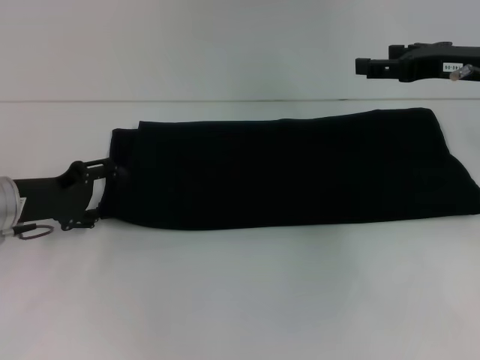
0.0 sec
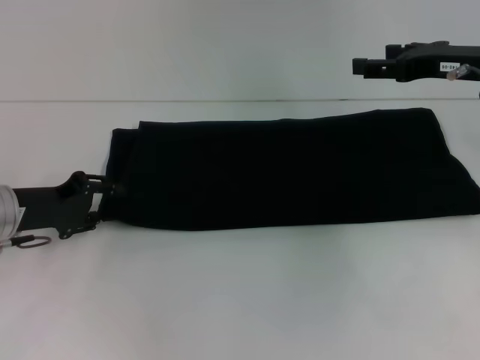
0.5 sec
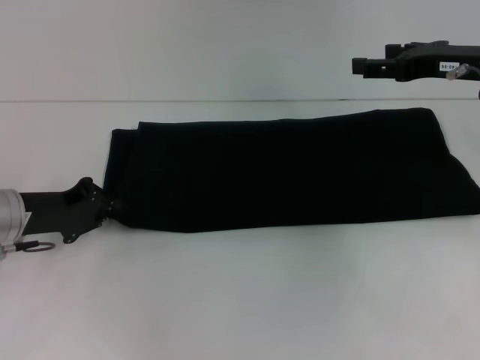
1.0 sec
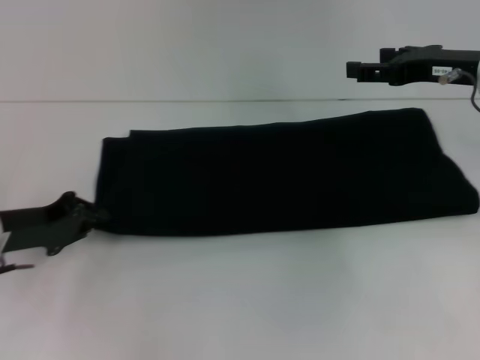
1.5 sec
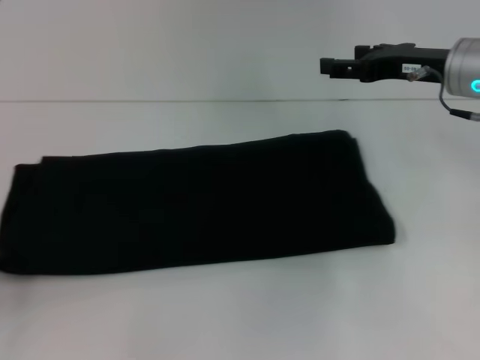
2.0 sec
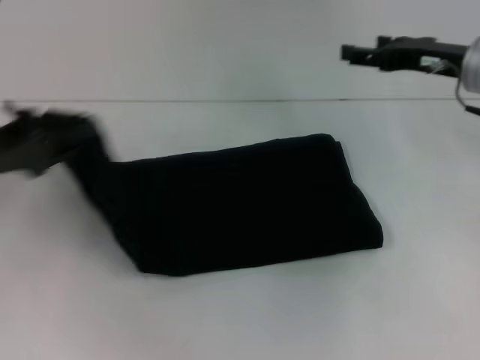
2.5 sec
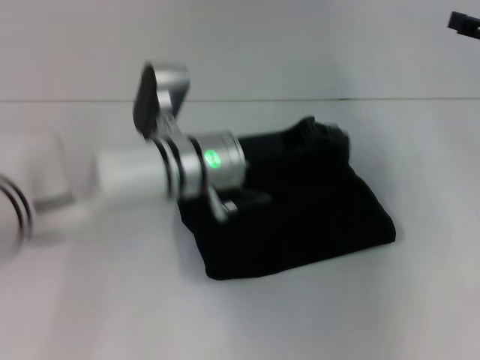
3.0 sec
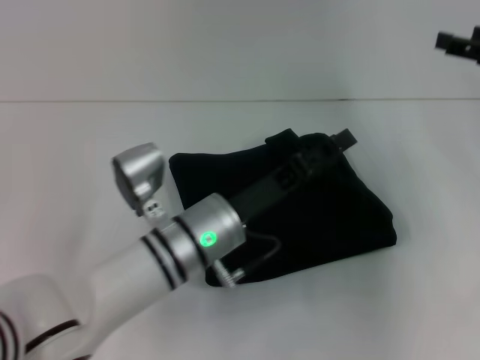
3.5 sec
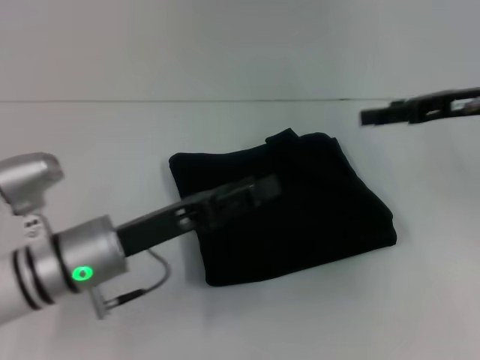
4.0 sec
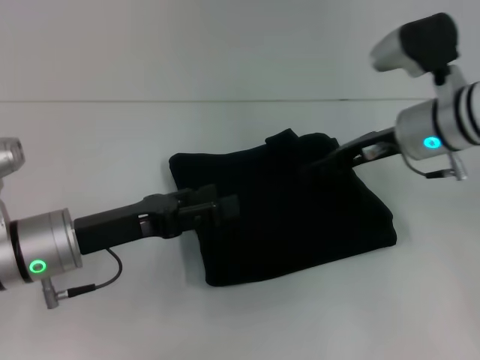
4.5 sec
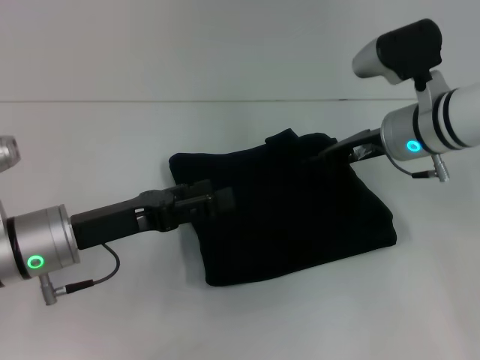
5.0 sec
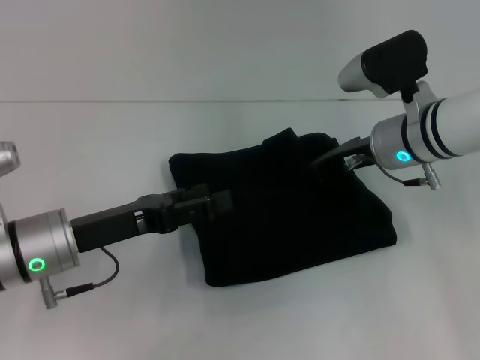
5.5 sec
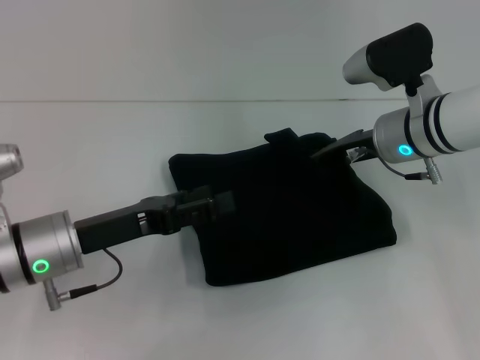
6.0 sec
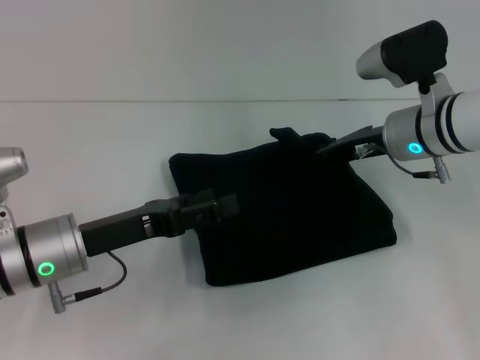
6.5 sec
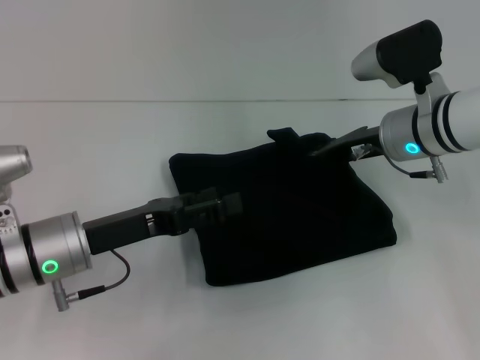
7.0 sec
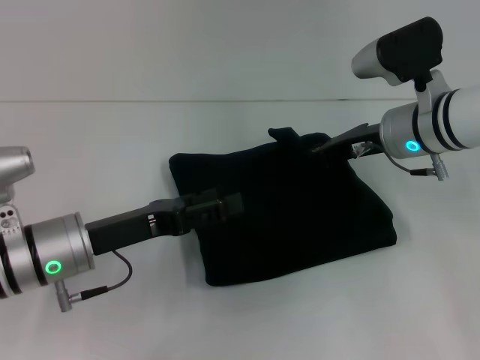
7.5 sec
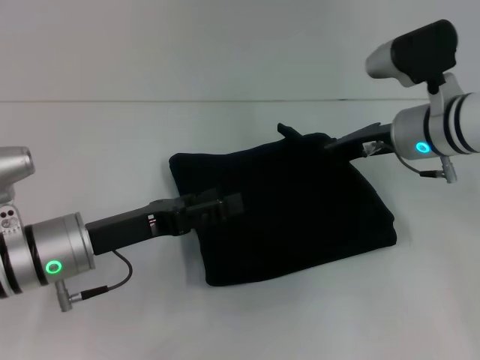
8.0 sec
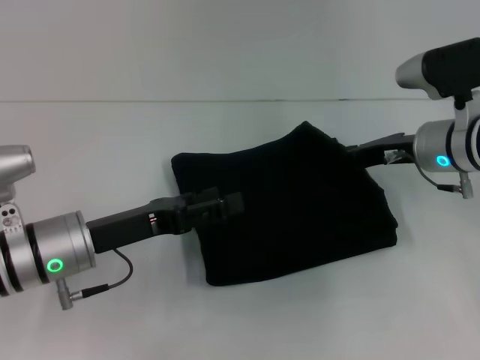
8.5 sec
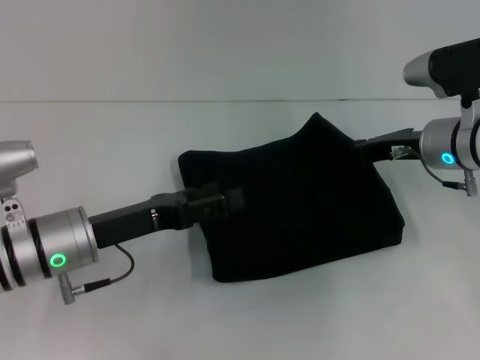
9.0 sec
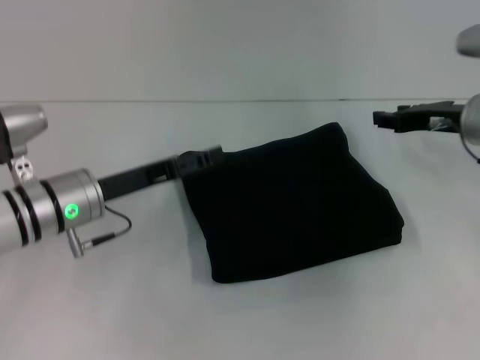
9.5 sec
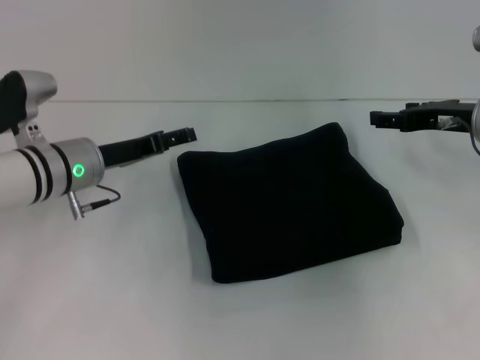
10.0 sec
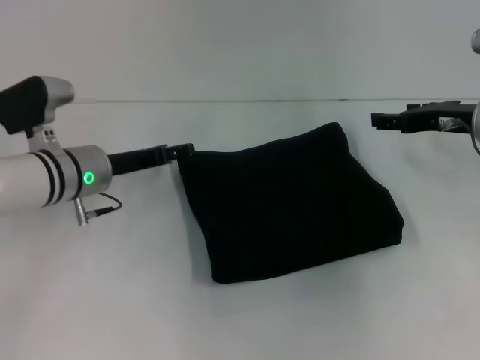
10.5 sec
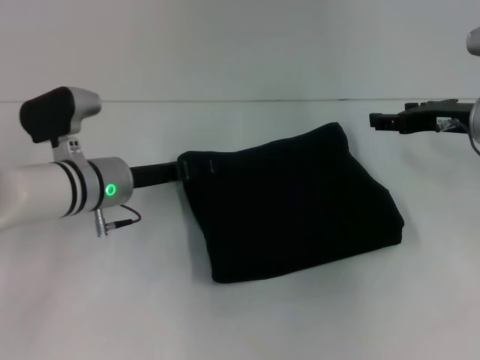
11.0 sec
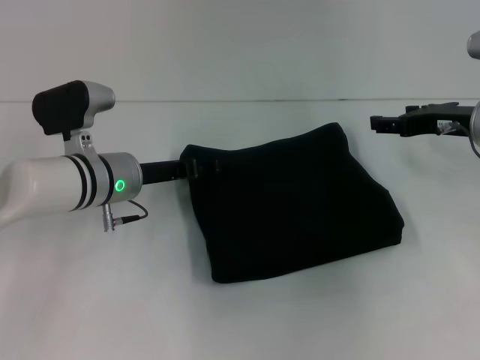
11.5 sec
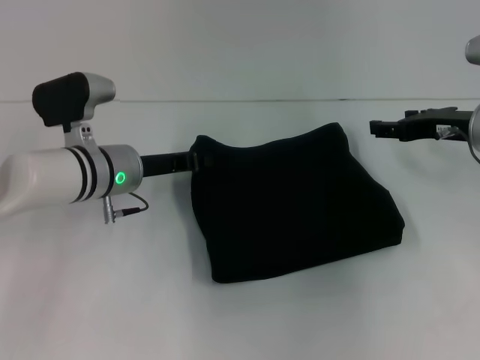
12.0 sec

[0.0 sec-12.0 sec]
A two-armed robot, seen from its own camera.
Step, 0.0 sec to 3.5 sec: Fold the clothes with your left hand.
0.0 sec to 2.0 sec: The left gripper heads backward and to the left, covering roughly 15 cm, and closes.
2.0 sec to 4.0 sec: The left gripper goes approximately 20 cm to the right, and opens up.
4.0 sec to 6.0 sec: The right gripper is displaced to the left and downward by roughly 10 cm, and closes up.
6.0 sec to 8.0 sec: There are only small adjustments of the grippers.
8.0 sec to 10.0 sec: The left gripper shifts approximately 10 cm forward. Meanwhile the right gripper goes some 10 cm to the right, and opens its fingers.
10.0 sec to 12.0 sec: The left gripper closes.

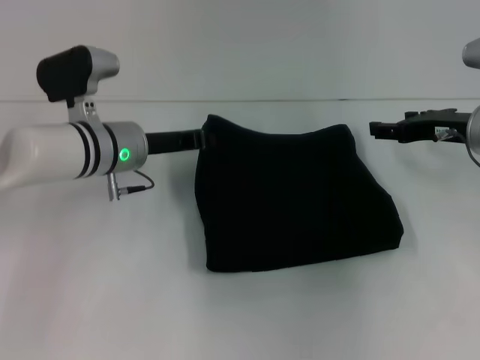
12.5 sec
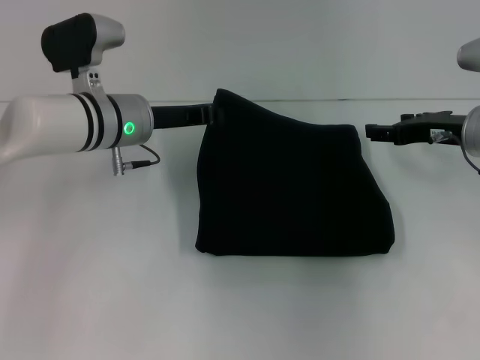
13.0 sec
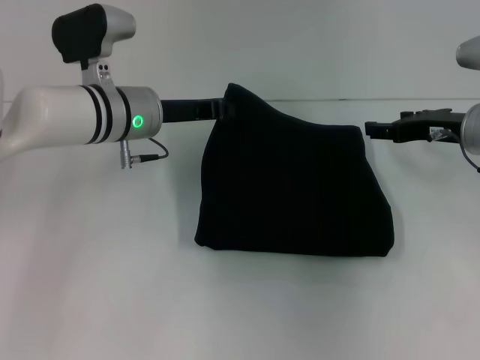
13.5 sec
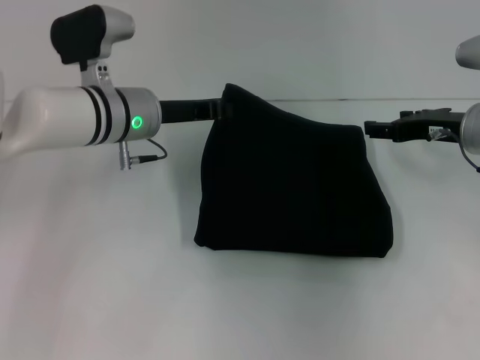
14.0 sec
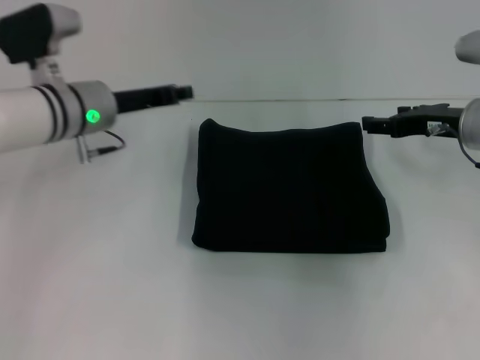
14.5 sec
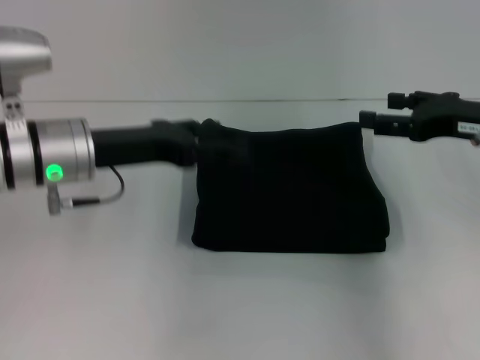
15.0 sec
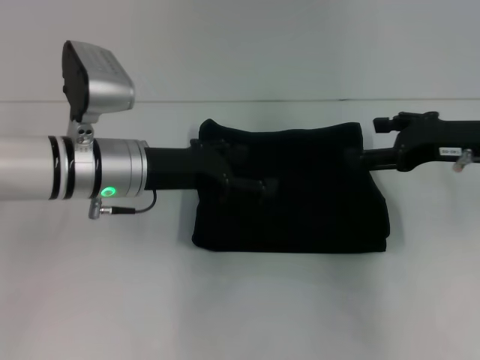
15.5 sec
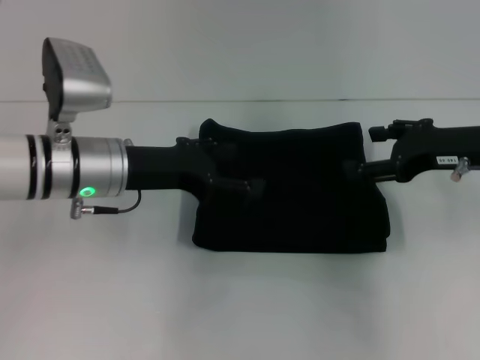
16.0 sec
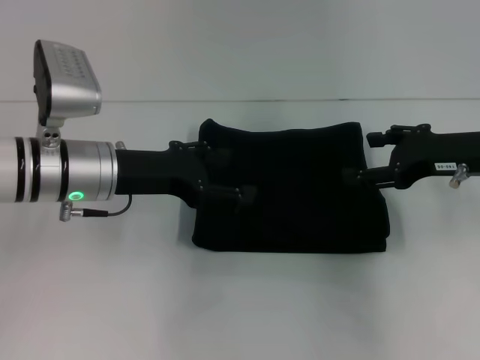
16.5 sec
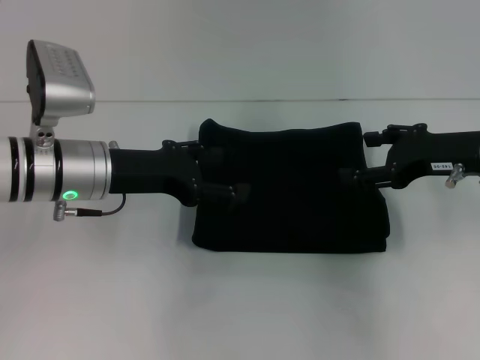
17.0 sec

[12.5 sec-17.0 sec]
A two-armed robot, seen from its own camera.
12.5 sec to 14.5 sec: The grippers make only small movements.
14.5 sec to 17.0 sec: The left gripper moves backward, approximately 5 cm, and opens up.

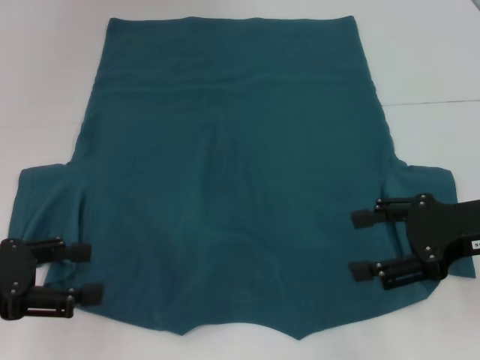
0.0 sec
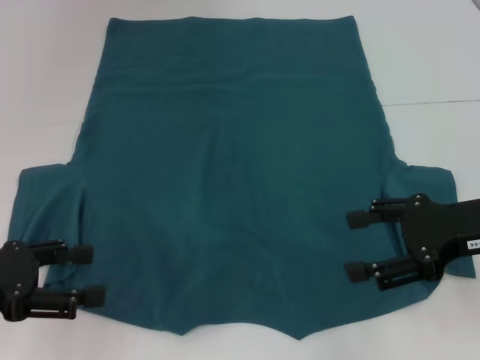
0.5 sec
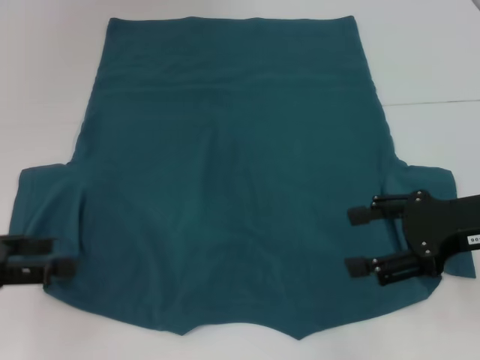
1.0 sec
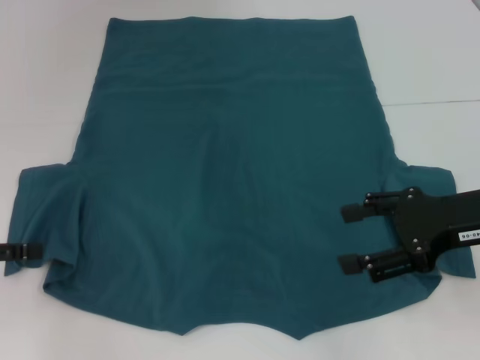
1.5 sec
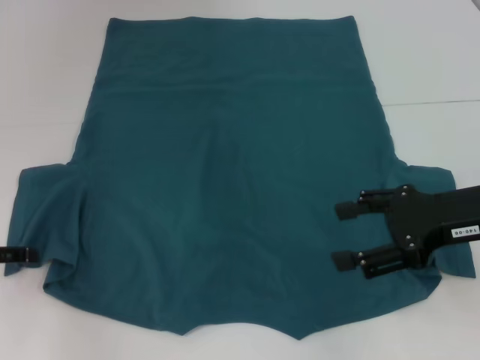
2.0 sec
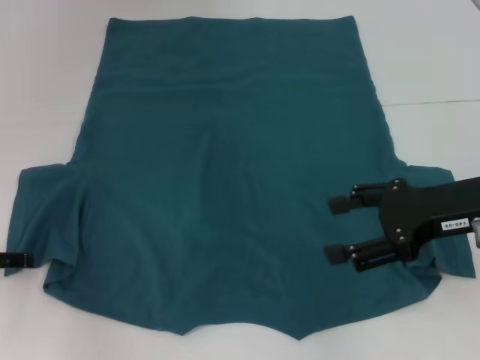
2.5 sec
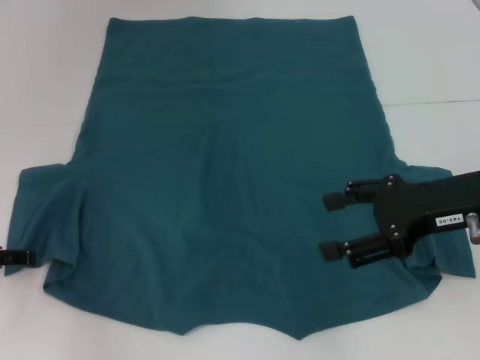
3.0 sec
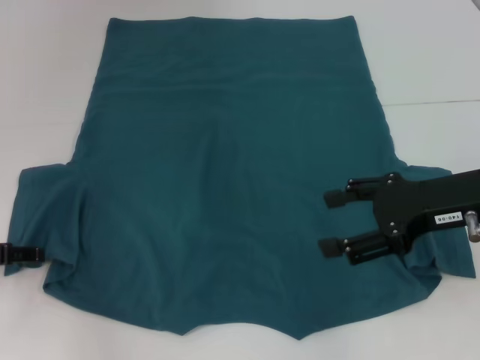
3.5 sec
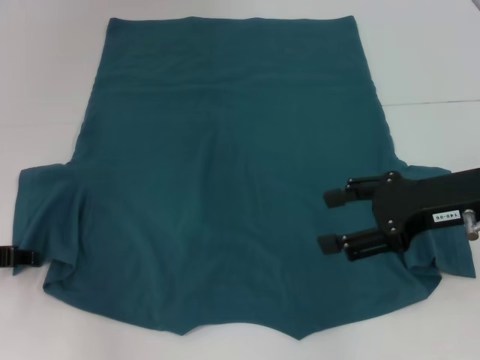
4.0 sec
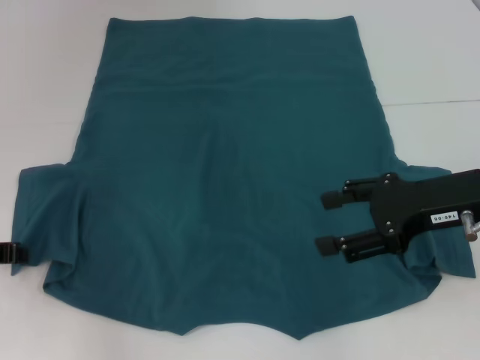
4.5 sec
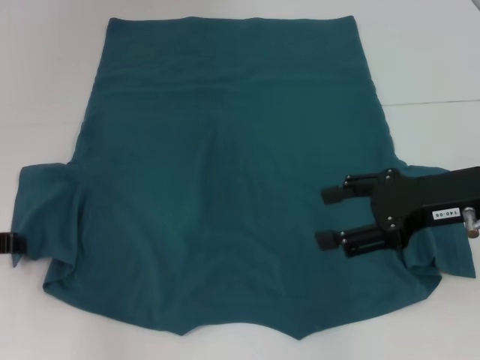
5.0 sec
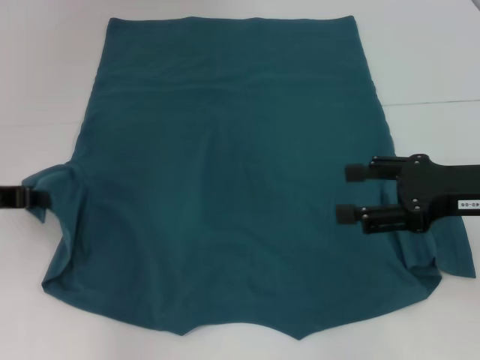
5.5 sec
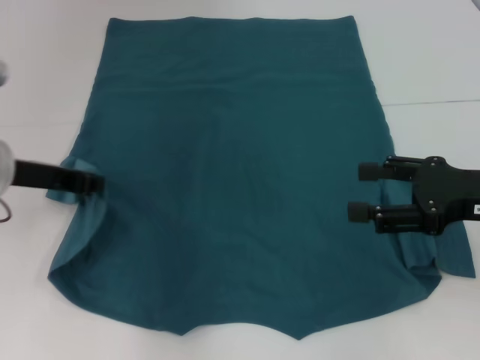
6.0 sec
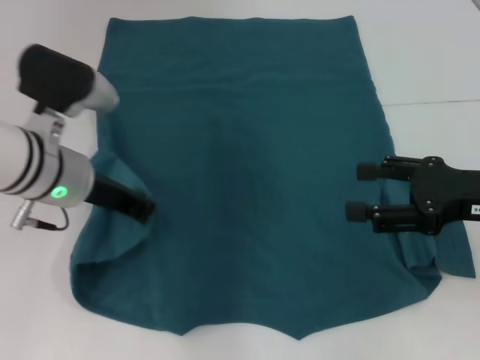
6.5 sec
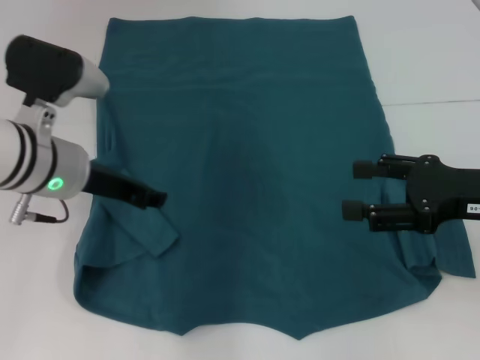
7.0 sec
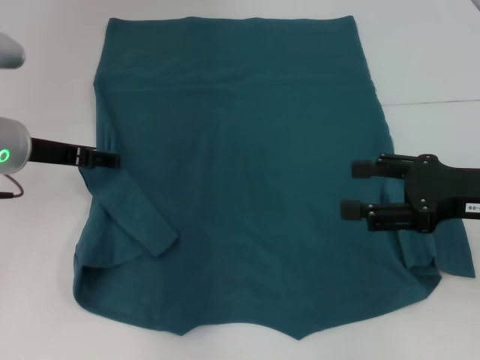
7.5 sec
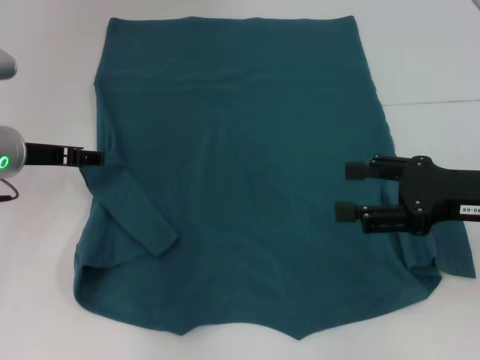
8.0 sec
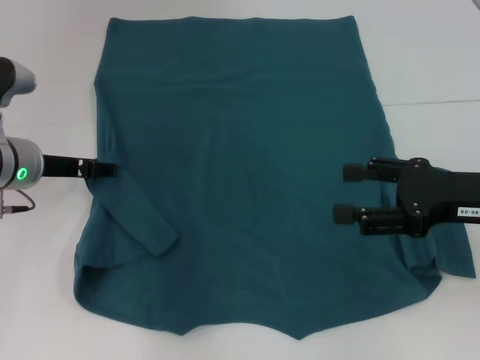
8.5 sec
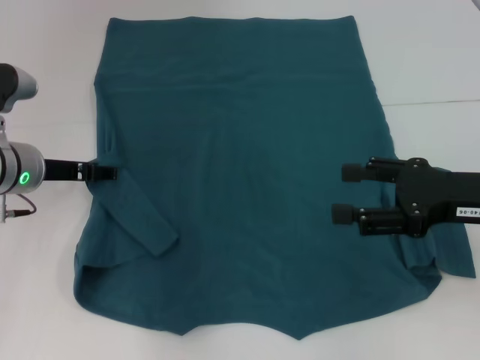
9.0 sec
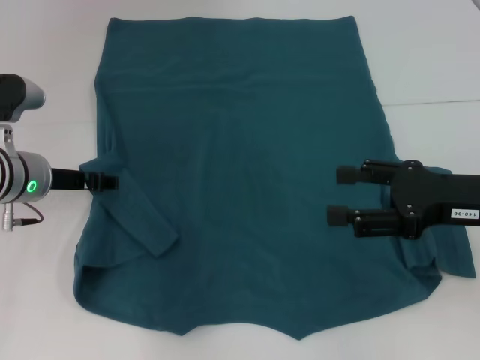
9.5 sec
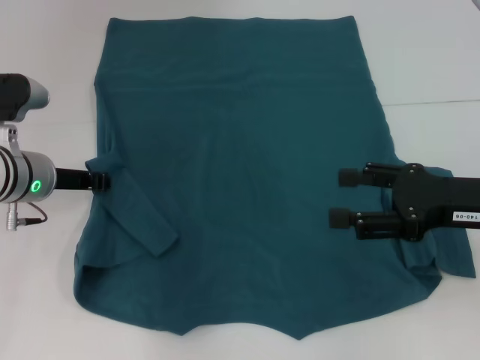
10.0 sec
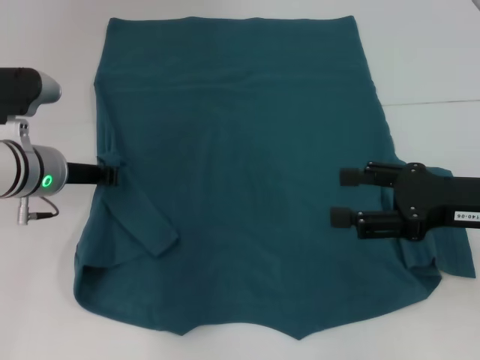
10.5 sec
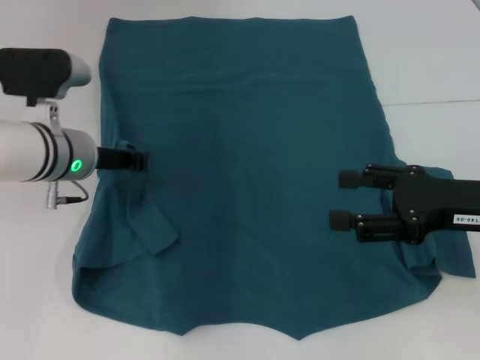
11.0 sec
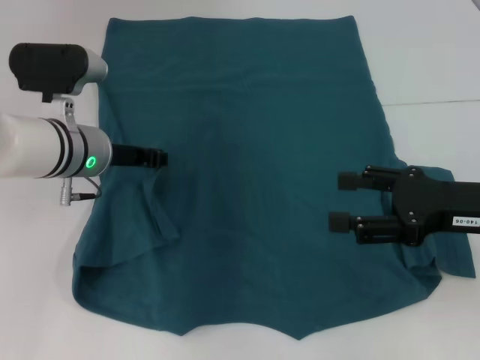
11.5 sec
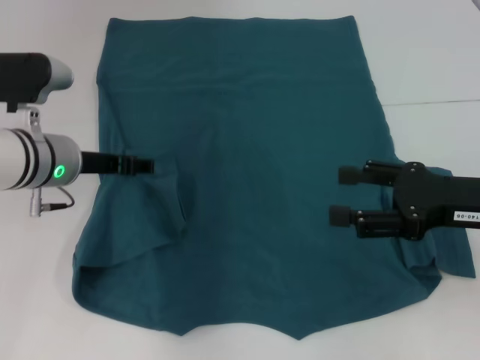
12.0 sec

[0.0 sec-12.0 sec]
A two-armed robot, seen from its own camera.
0.0 sec to 2.0 sec: The left gripper changes place by approximately 5 cm.
2.0 sec to 4.0 sec: There are only small adjustments of the grippers.
4.0 sec to 6.0 sec: The left gripper shifts about 10 cm to the right and upward, and closes up.
6.0 sec to 8.0 sec: The left gripper moves about 5 cm, and opens.
8.0 sec to 10.0 sec: The left gripper closes.
10.0 sec to 12.0 sec: The left gripper closes and opens again.
